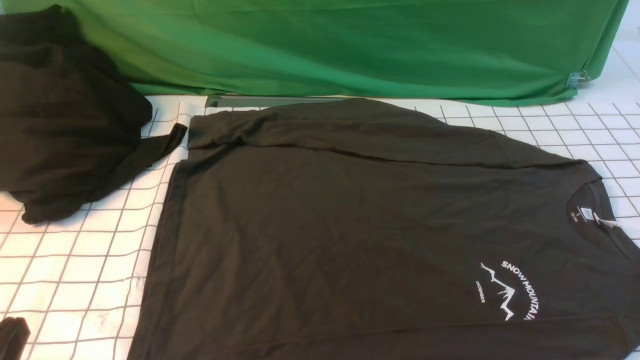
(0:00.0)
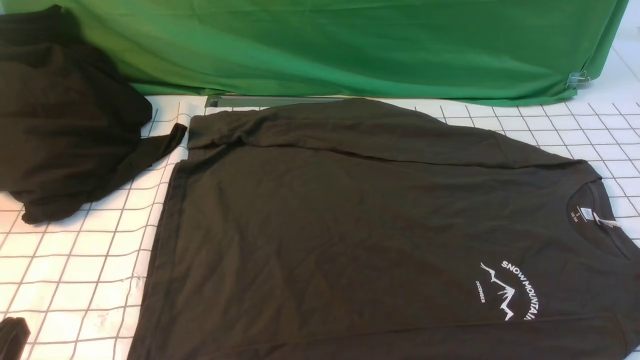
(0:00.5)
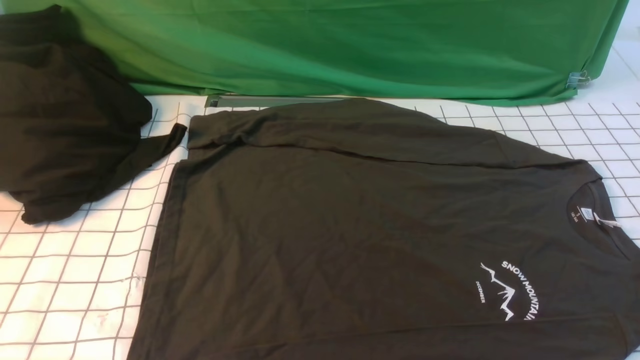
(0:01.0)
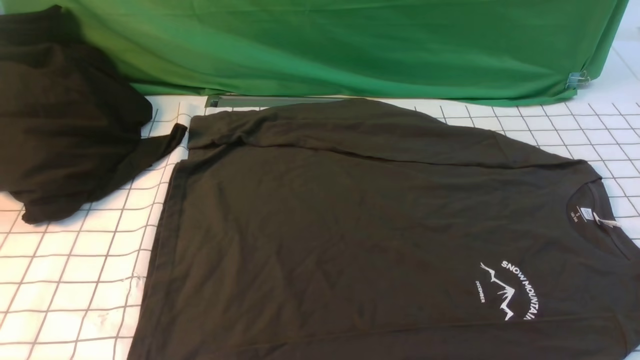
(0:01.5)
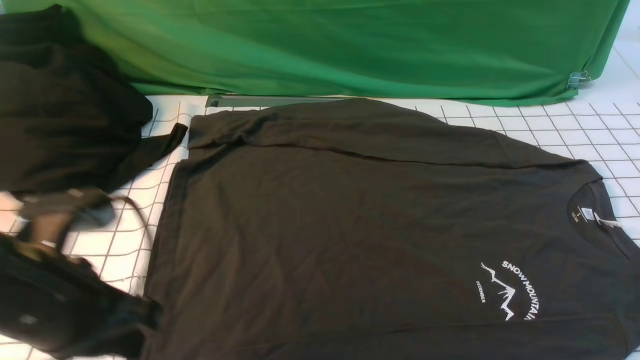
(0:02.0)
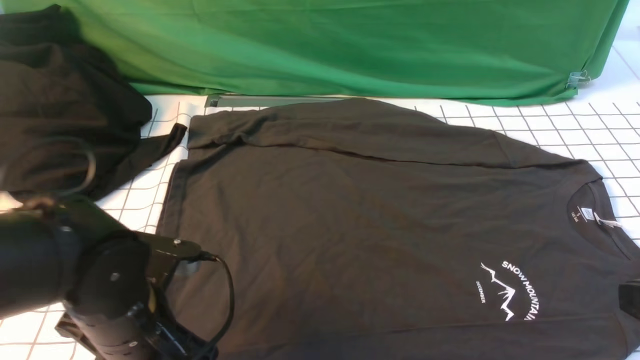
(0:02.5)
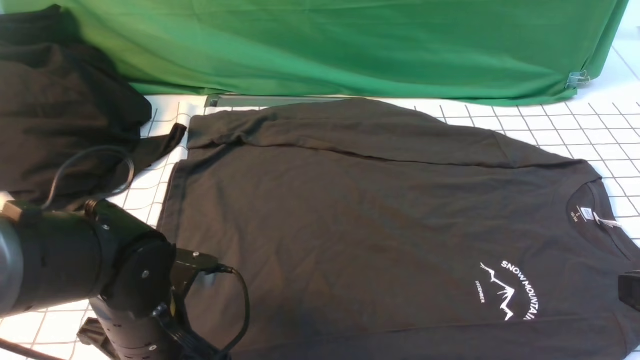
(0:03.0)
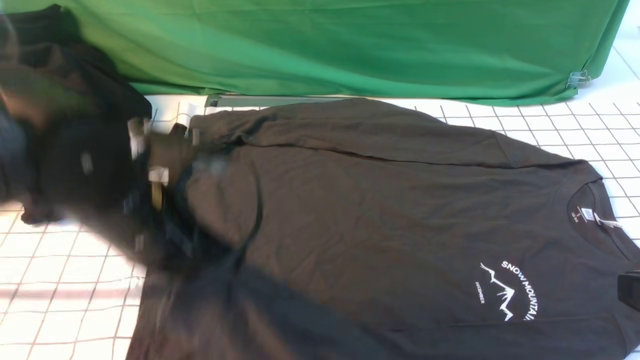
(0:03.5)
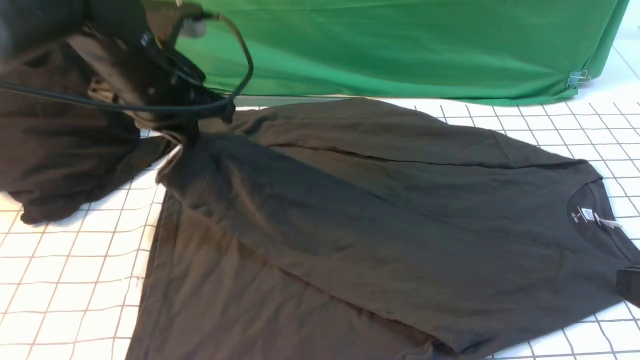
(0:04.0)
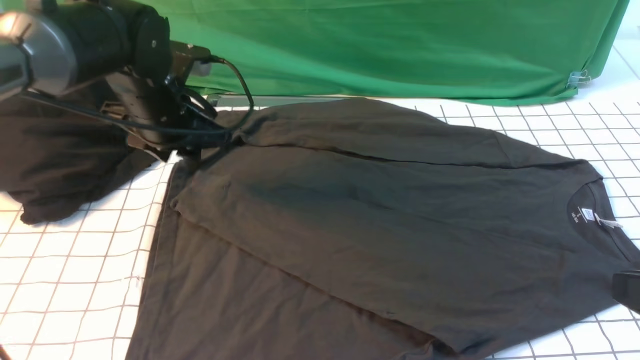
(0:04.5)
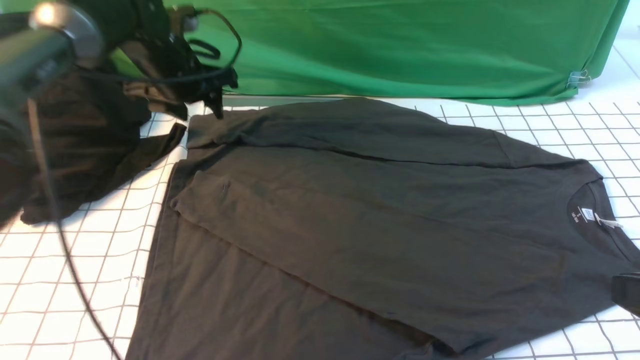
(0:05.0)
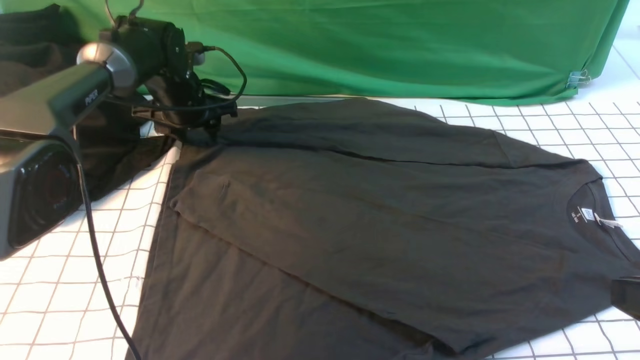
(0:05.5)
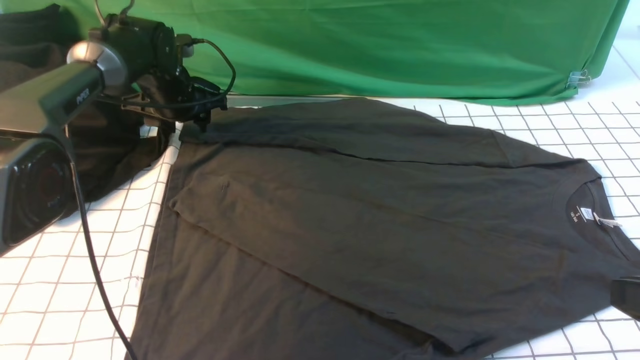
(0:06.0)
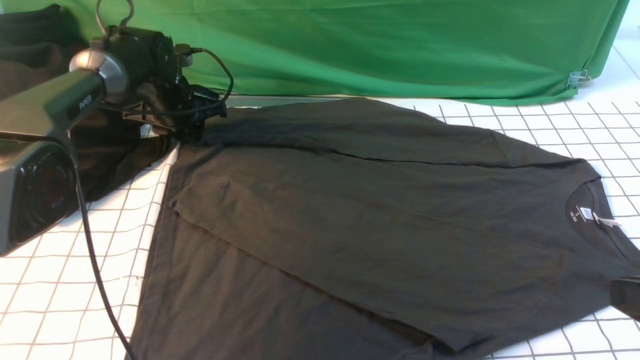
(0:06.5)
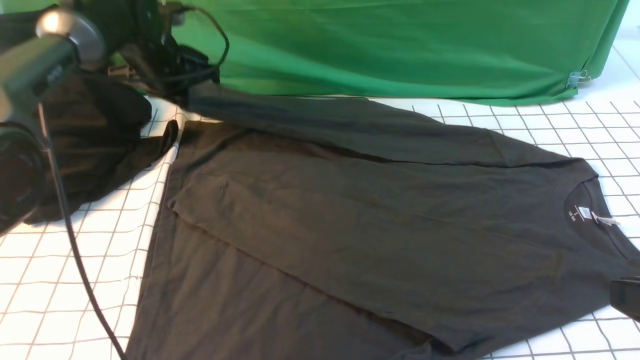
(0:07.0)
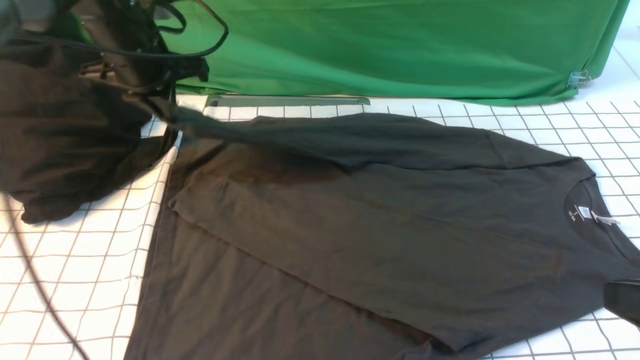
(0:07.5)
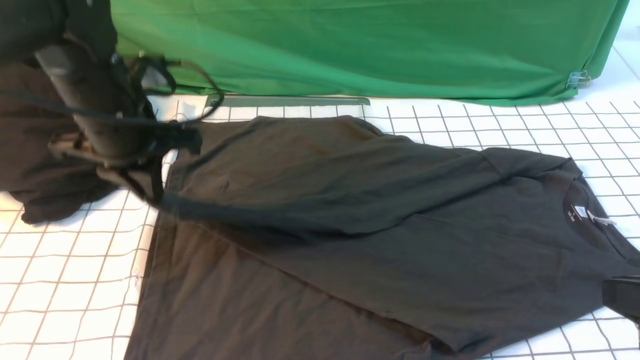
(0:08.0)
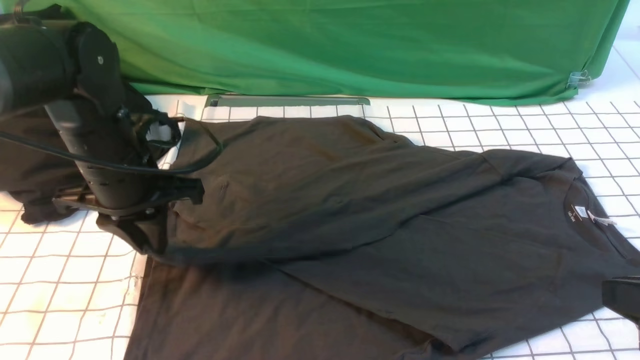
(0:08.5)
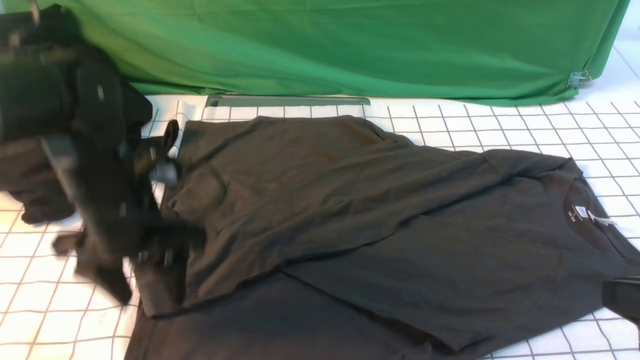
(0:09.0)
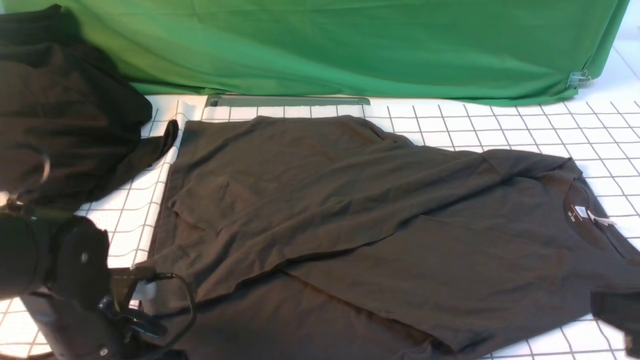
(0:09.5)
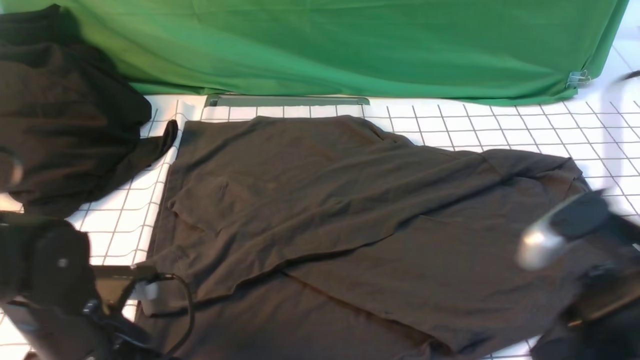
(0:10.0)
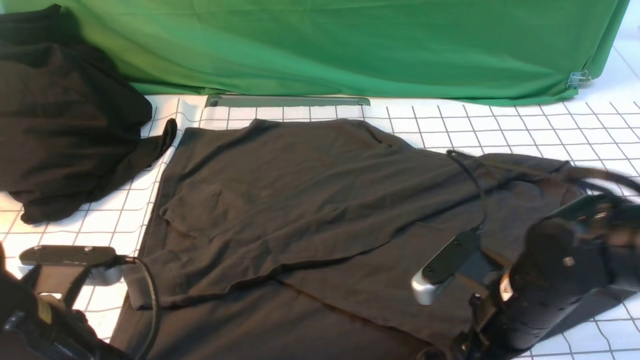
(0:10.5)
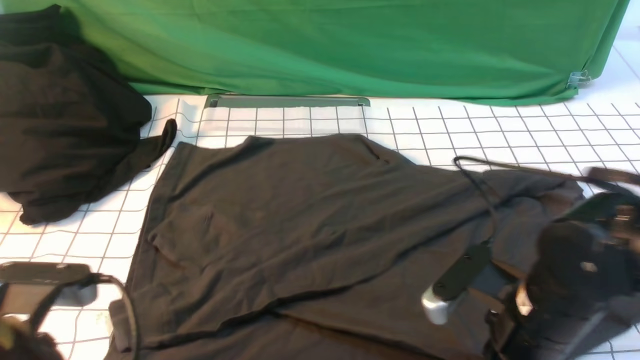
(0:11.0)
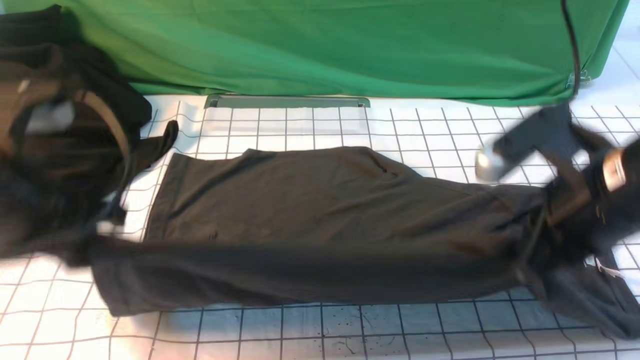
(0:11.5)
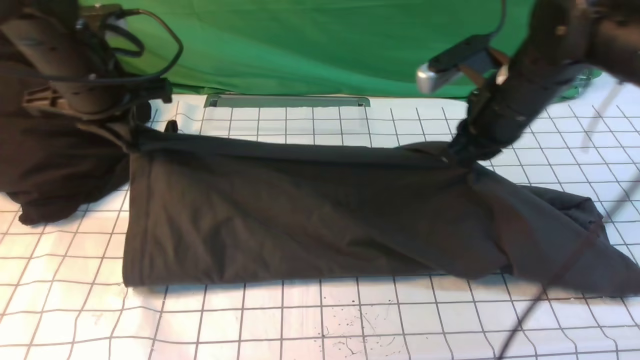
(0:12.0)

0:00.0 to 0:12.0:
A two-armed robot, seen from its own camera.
Step, 0:00.0 to 0:03.0: use the left arm to clamp the cuff closest to it.
Step, 0:03.5 to 0:04.5: use the left arm to drag and place the cuff at the centered position on the left edge of the fabric.
Step, 0:05.0 to 0:06.5: use the left arm to clamp the cuff farthest from it.
Step, 0:07.0 to 0:08.5: use the left arm to drag and drop the cuff onto the cuff closest to the left arm.
Step, 0:09.0 to 0:11.0: use both arms simultaneously to clamp the lower edge of the clothing fabric.
0:00.0 to 0:02.0: The left gripper goes some 15 cm forward, upward and to the right.
0:02.0 to 0:04.0: The right gripper changes place by some 5 cm; the left gripper is displaced forward by about 20 cm, and opens, then closes again.
0:04.0 to 0:06.0: The left gripper moves forward and downward, approximately 20 cm, and opens its fingers.
0:06.0 to 0:08.0: The left gripper shifts some 20 cm backward and upward, and closes up.
0:08.0 to 0:10.0: The right gripper is displaced forward and to the left by some 10 cm, while the left gripper moves backward and downward, about 20 cm, and opens, then closes once more.
0:10.0 to 0:12.0: The left gripper is displaced forward and upward by approximately 25 cm; the right gripper goes roughly 20 cm forward, and opens, then closes again.

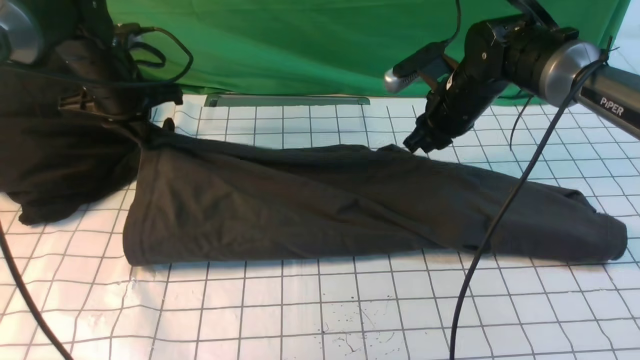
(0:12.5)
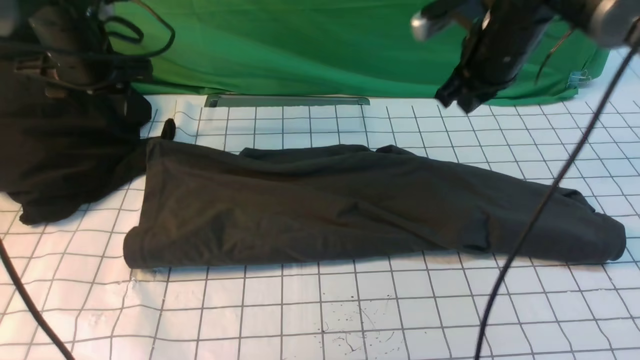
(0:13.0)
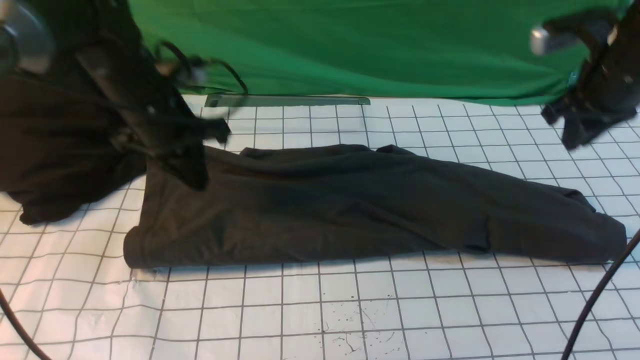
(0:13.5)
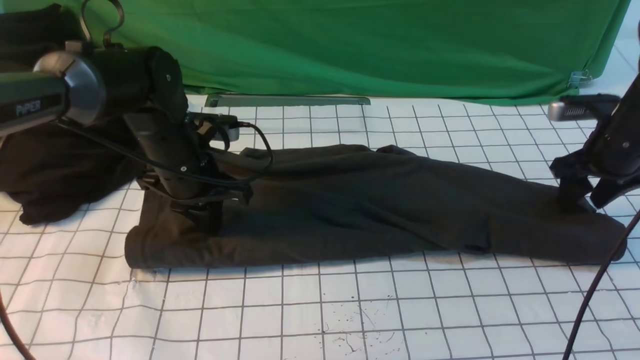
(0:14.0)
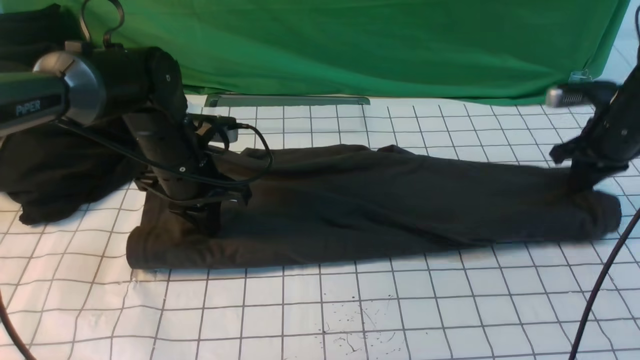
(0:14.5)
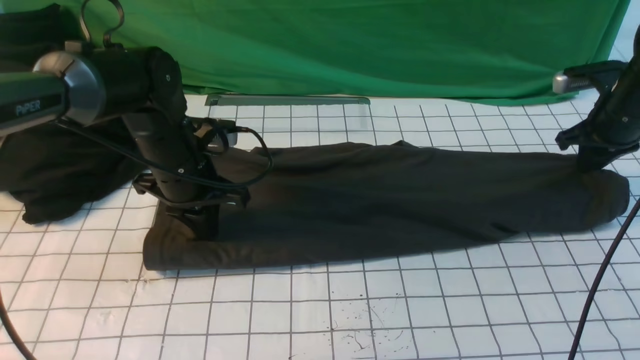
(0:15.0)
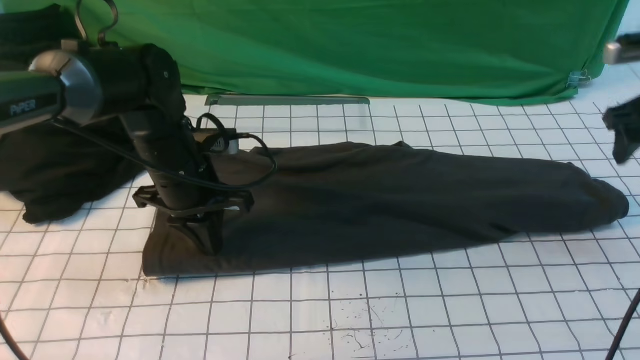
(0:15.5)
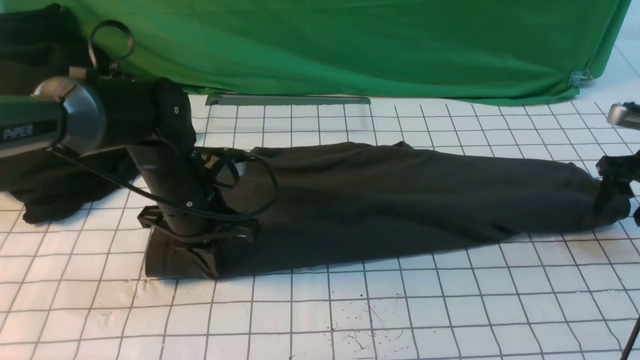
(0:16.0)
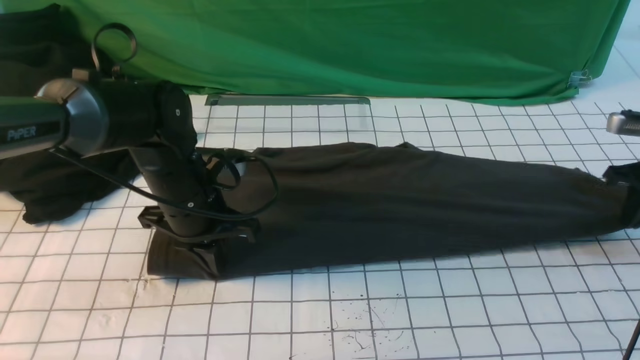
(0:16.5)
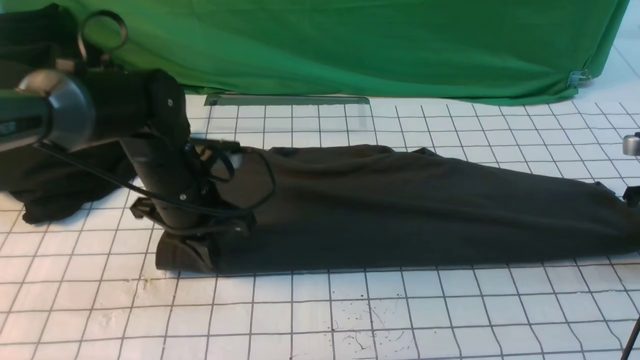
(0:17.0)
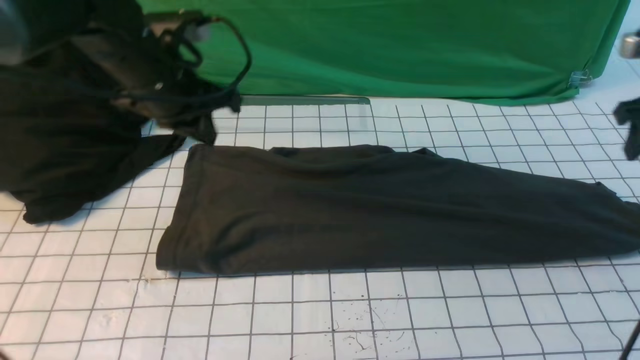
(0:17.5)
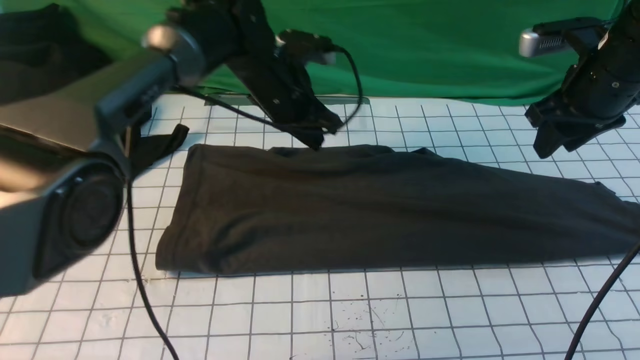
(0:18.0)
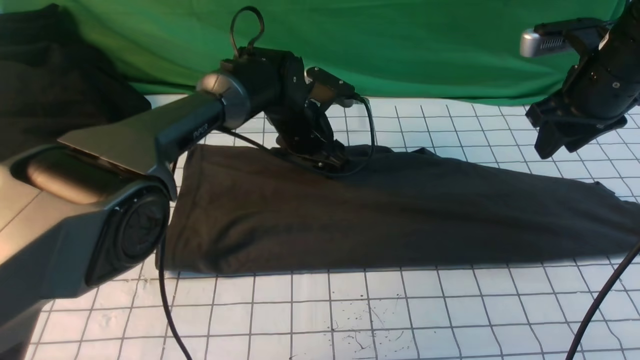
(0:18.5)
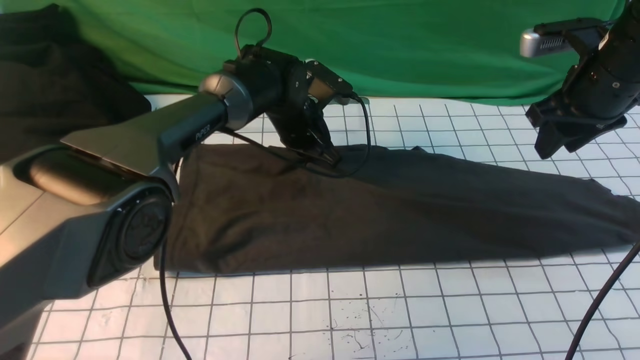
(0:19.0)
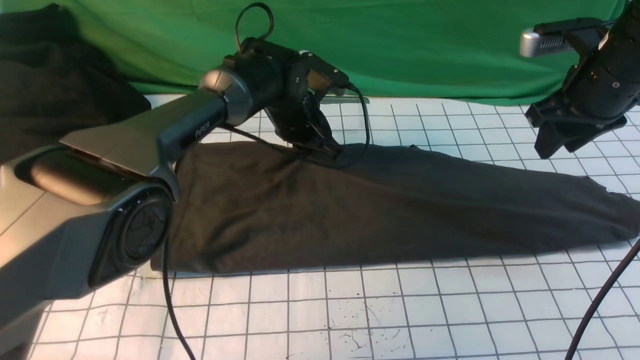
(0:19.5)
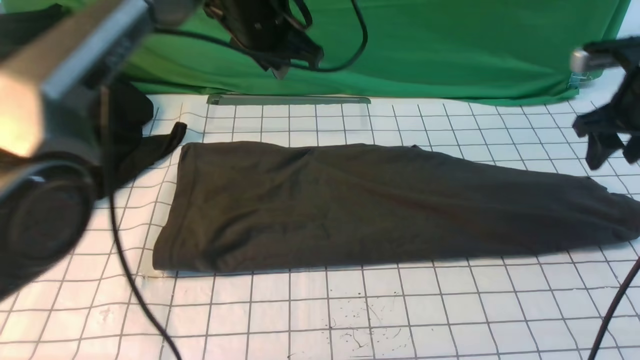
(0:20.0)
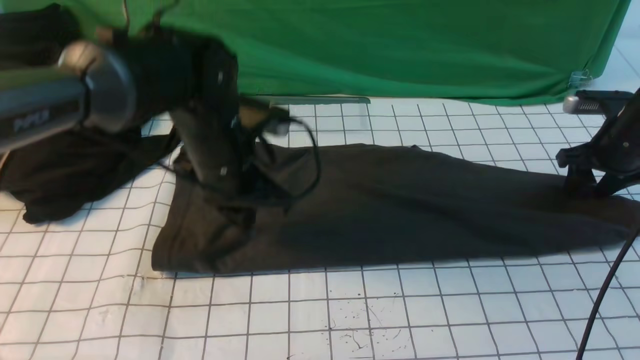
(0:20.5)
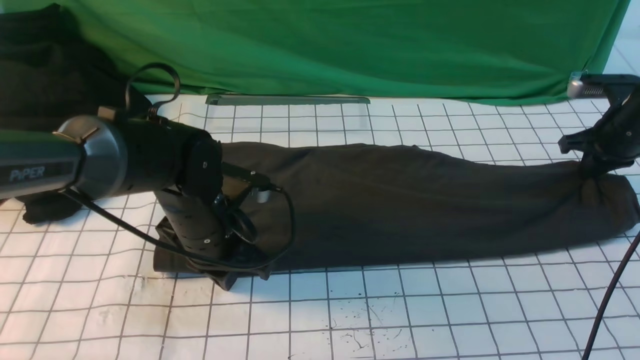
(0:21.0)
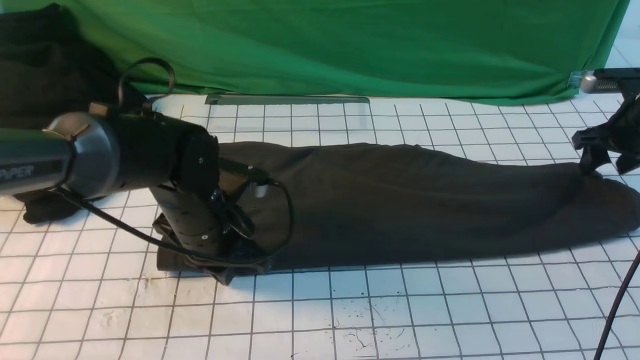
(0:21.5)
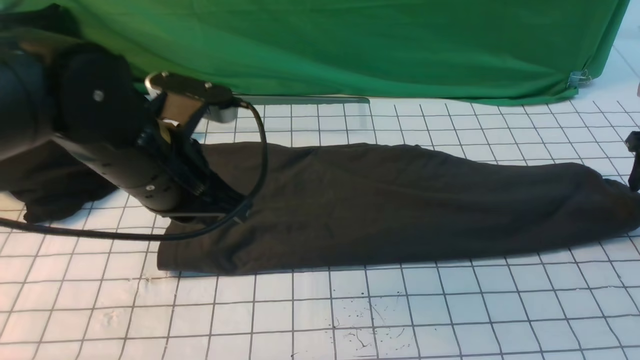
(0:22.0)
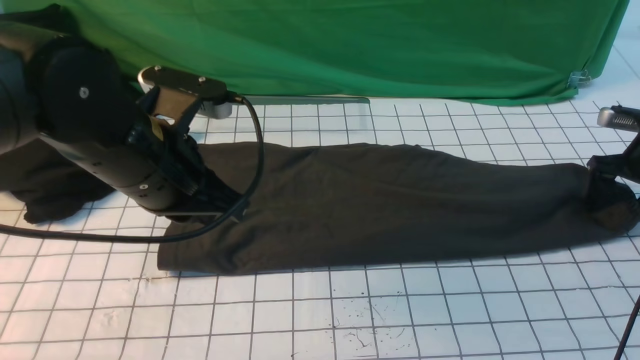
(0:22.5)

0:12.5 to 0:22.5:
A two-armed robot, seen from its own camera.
0:12.5 to 0:14.5: The right gripper is displaced to the right by roughly 20 cm. Meanwhile the left gripper is displaced to the right, backward and downward by roughly 15 cm.
0:14.5 to 0:16.5: The right gripper moves to the right, approximately 5 cm, and opens, then closes again.
0:16.5 to 0:18.5: The left gripper travels forward and to the right by roughly 20 cm, and opens. Meanwhile the right gripper moves to the left and upward, some 20 cm, and opens.
0:18.5 to 0:20.5: The right gripper heads downward, to the right and forward, covering some 15 cm. Meanwhile the left gripper travels backward, to the left and upward by roughly 15 cm, and closes its fingers.
0:20.5 to 0:22.5: The right gripper ends up approximately 5 cm from where it was, and closes, then opens again; the left gripper heads backward and upward, covering about 10 cm.
